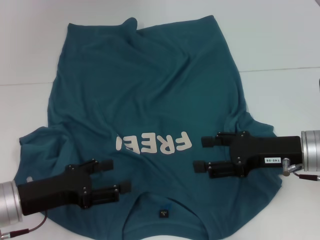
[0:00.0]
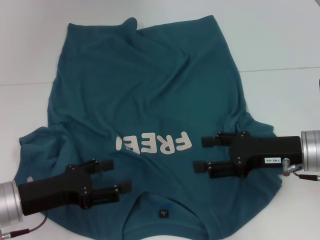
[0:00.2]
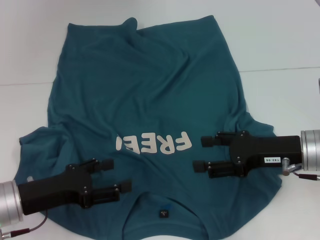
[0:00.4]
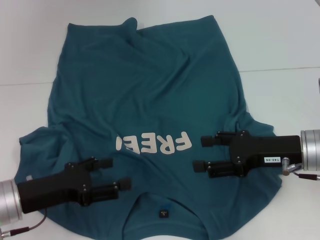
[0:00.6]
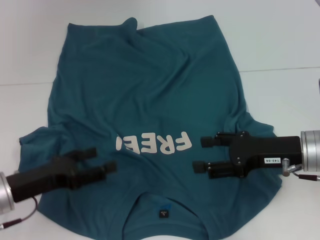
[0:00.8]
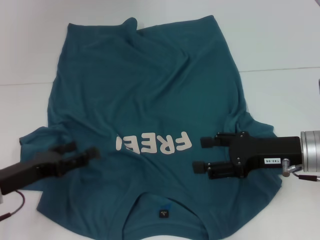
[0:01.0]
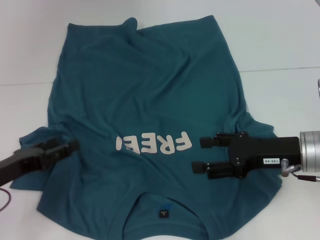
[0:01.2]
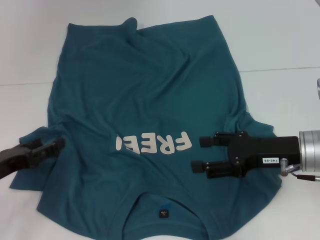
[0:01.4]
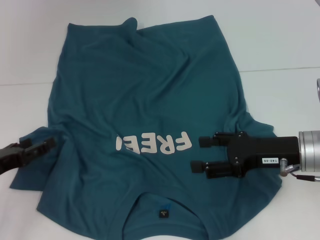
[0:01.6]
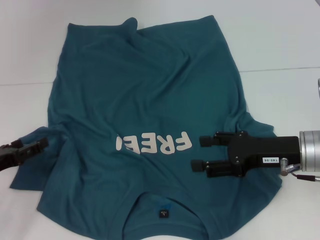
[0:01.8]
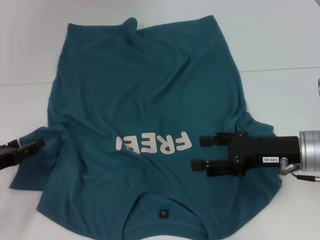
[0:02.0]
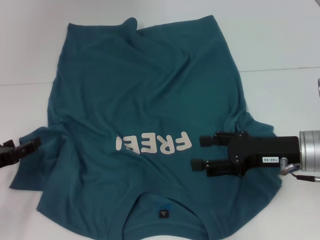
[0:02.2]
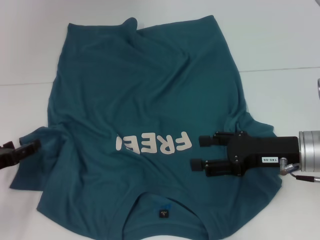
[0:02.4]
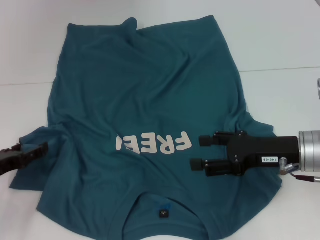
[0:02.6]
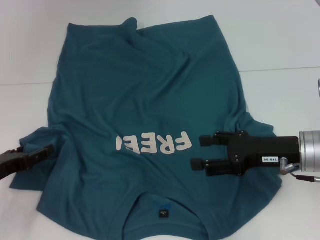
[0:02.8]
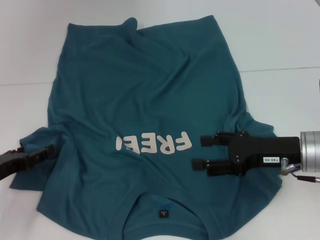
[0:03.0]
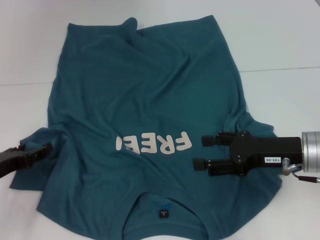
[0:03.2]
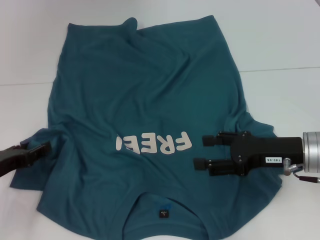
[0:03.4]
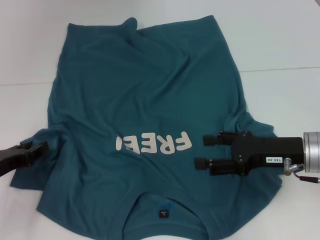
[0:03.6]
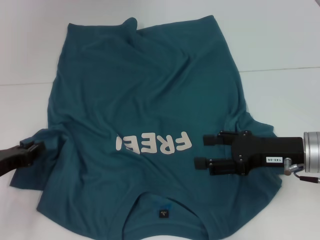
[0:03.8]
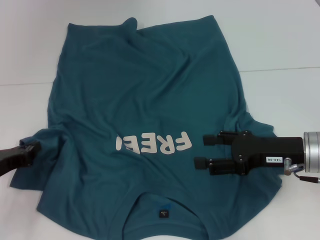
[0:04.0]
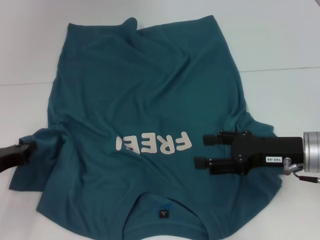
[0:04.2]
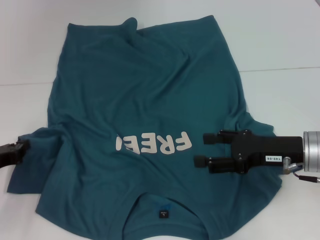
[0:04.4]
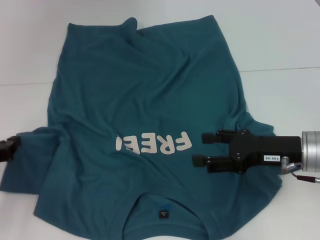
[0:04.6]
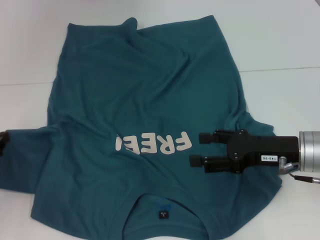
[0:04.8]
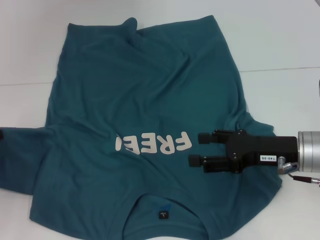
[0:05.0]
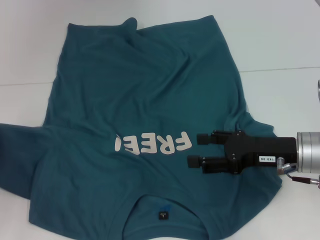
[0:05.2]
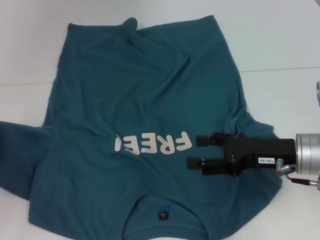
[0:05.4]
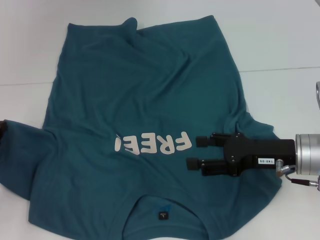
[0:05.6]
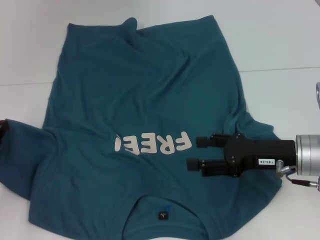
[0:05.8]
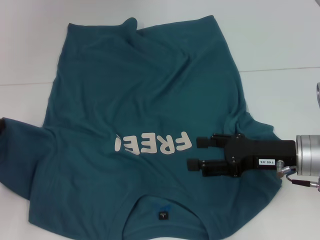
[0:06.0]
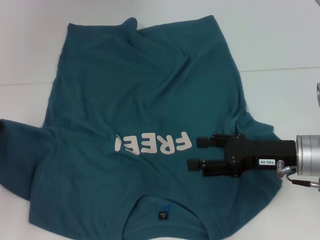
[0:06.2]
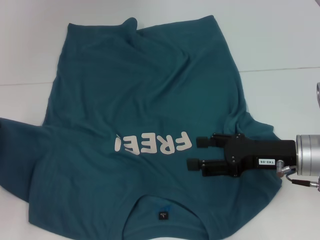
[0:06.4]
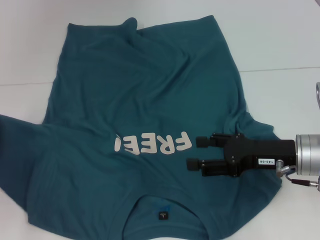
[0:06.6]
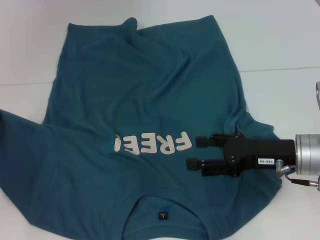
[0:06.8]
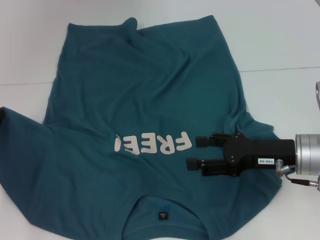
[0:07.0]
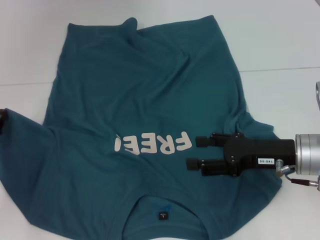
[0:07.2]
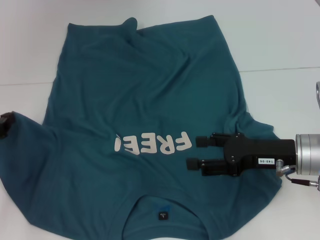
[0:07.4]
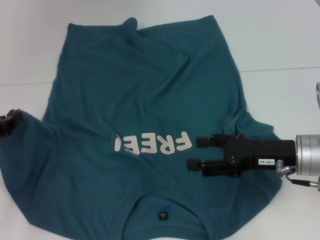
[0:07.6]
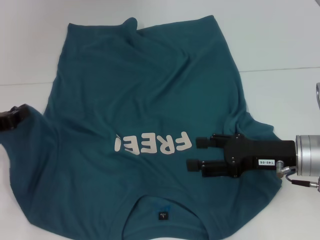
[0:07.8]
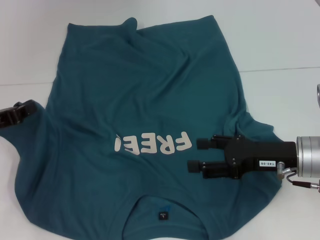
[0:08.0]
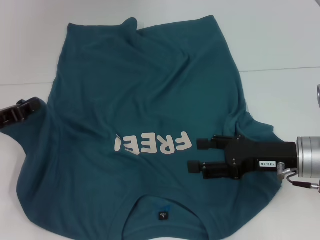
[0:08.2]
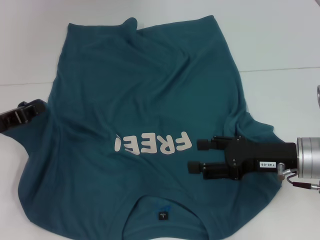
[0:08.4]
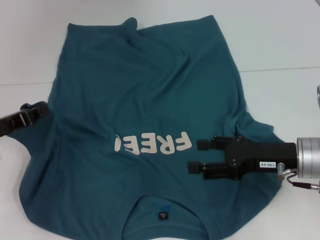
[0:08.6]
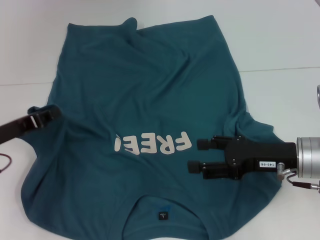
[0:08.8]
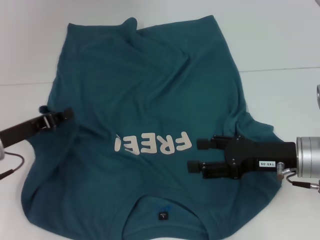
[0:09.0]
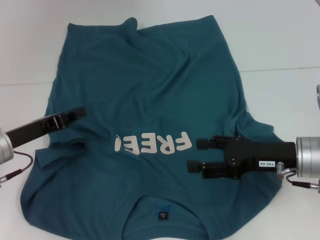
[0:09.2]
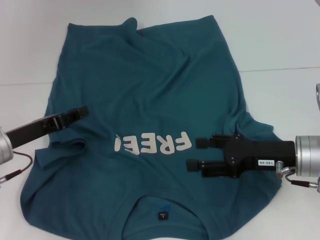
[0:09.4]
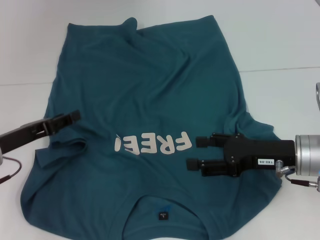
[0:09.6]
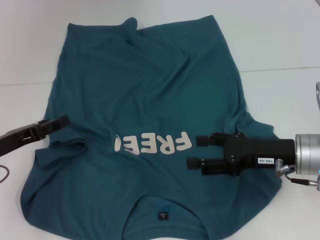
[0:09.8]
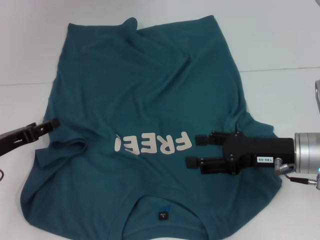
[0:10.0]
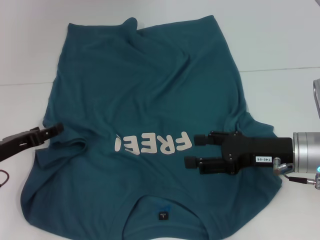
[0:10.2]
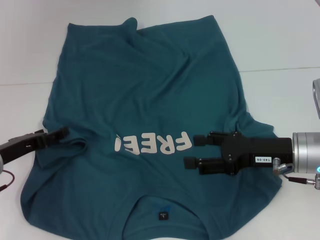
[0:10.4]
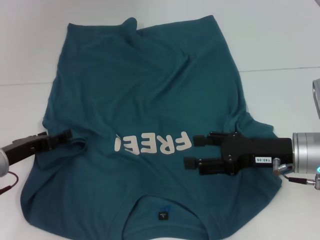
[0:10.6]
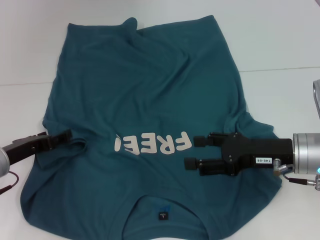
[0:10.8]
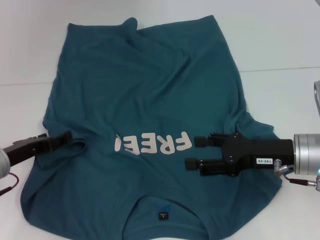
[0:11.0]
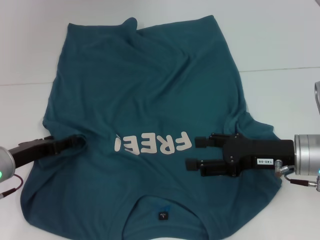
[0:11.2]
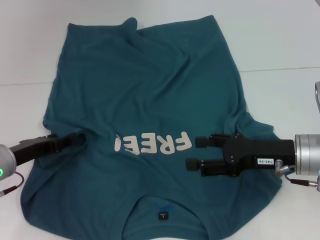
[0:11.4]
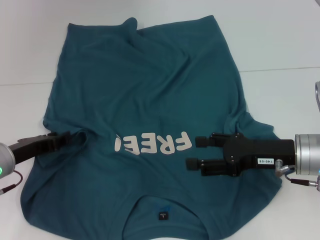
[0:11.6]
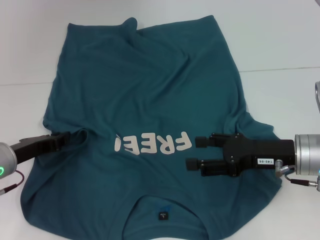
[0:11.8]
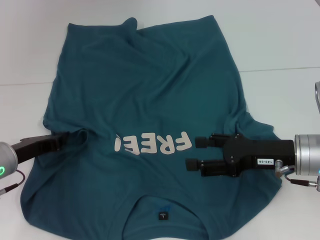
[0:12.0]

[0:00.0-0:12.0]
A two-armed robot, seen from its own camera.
0:00.0 to 0:01.6: The left gripper shifts approximately 10 cm to the left.
0:01.6 to 0:03.0: The grippers stay close to where they were, moving slightly.
0:03.0 to 0:04.4: The left gripper closes its fingers.
0:04.4 to 0:07.6: There are only small adjustments of the grippers.
0:07.6 to 0:09.0: The left gripper goes approximately 5 cm to the right.
0:09.0 to 0:10.4: The left gripper opens its fingers.
0:10.4 to 0:12.0: The left gripper closes.

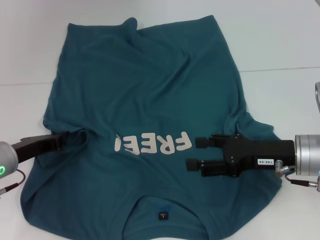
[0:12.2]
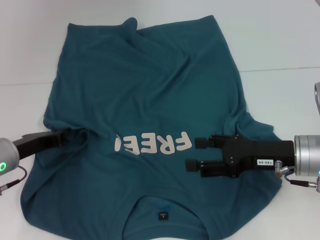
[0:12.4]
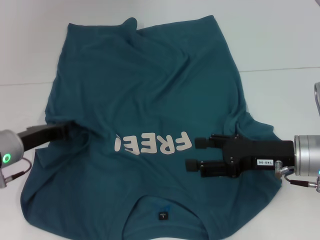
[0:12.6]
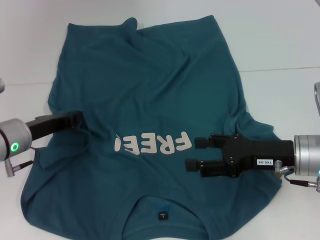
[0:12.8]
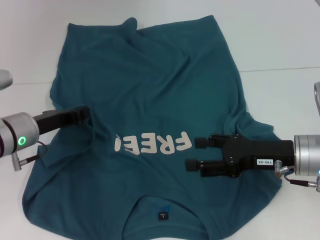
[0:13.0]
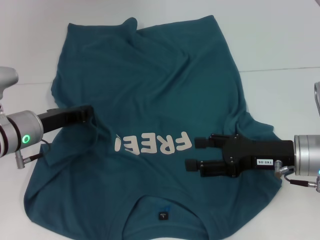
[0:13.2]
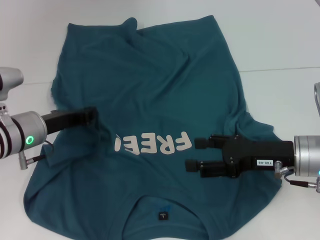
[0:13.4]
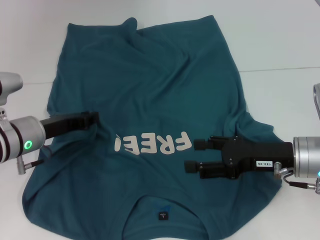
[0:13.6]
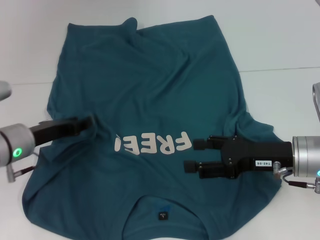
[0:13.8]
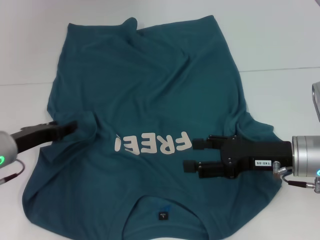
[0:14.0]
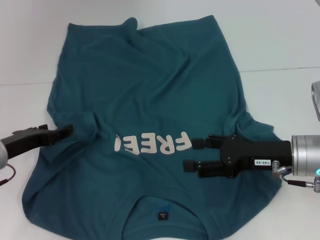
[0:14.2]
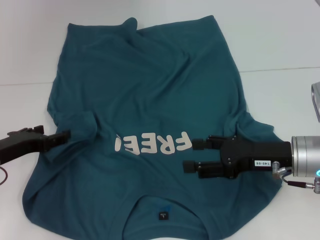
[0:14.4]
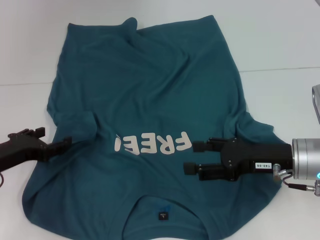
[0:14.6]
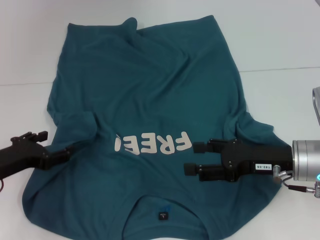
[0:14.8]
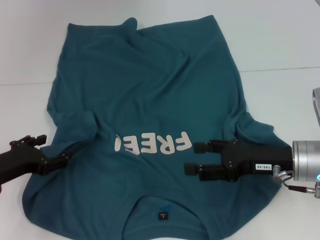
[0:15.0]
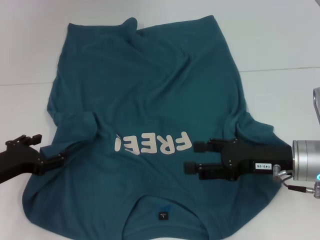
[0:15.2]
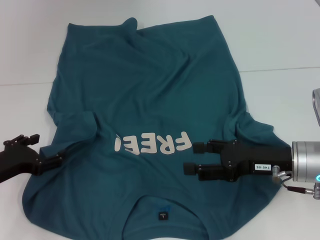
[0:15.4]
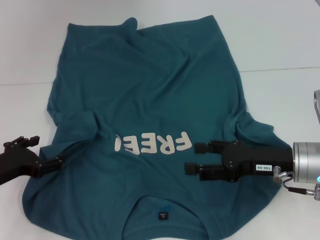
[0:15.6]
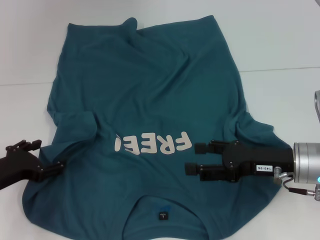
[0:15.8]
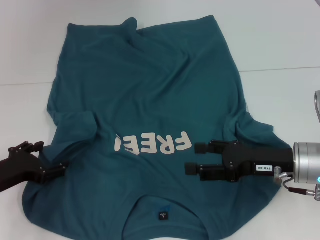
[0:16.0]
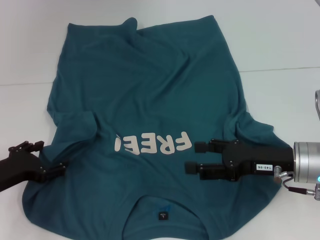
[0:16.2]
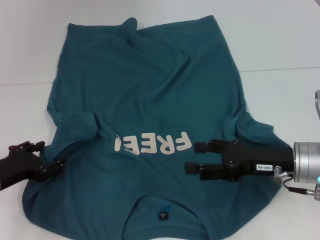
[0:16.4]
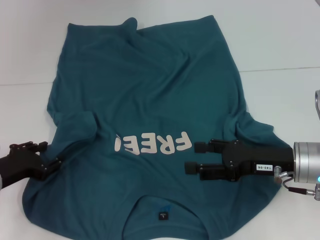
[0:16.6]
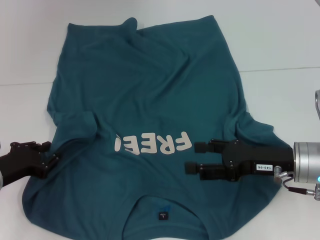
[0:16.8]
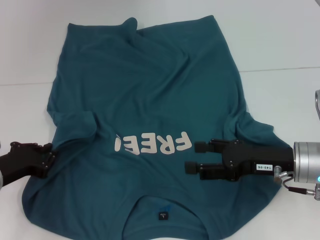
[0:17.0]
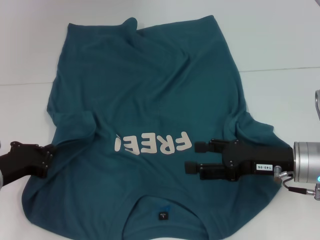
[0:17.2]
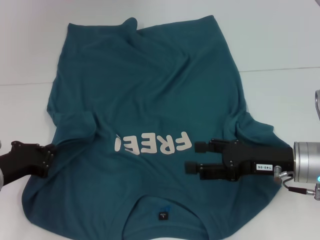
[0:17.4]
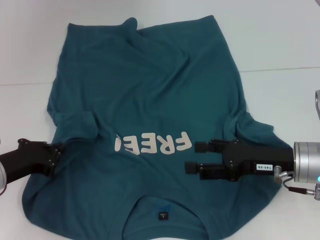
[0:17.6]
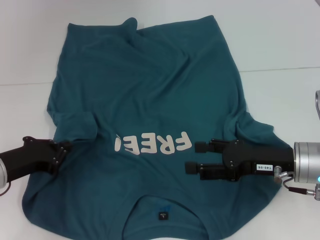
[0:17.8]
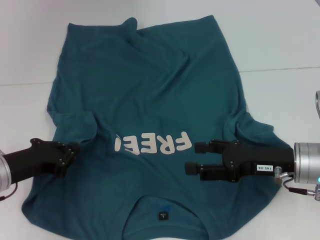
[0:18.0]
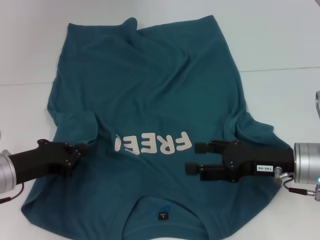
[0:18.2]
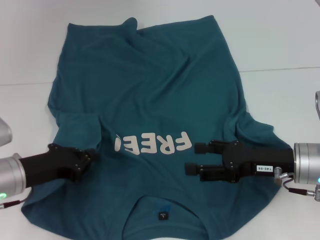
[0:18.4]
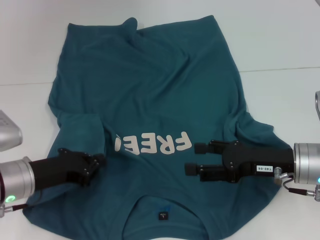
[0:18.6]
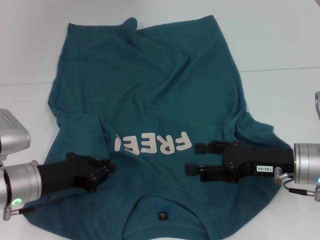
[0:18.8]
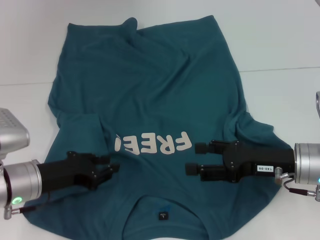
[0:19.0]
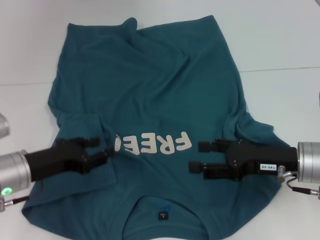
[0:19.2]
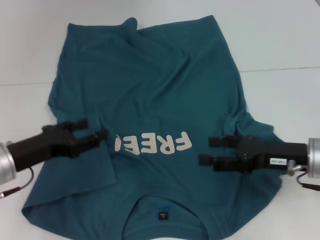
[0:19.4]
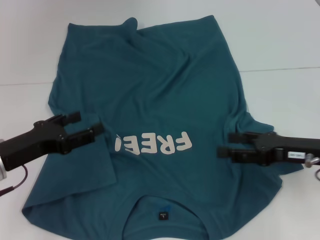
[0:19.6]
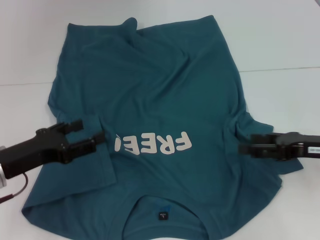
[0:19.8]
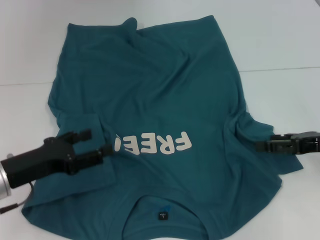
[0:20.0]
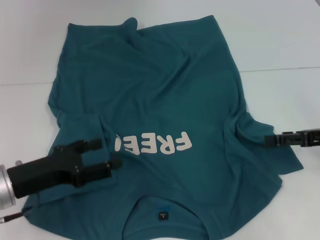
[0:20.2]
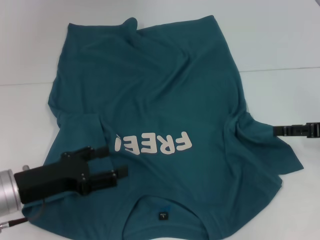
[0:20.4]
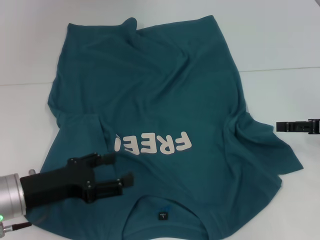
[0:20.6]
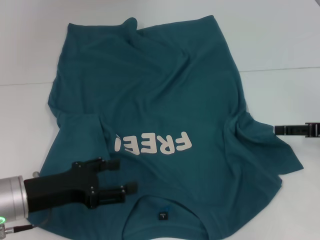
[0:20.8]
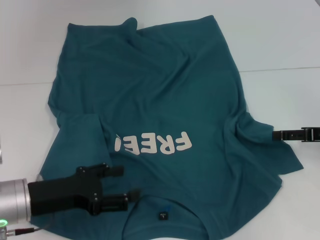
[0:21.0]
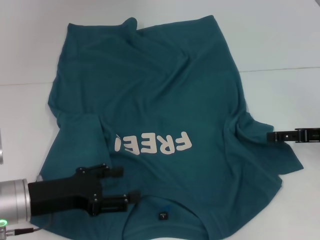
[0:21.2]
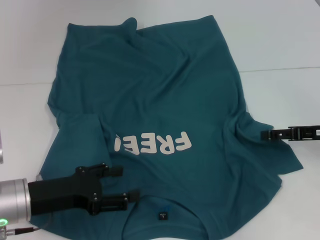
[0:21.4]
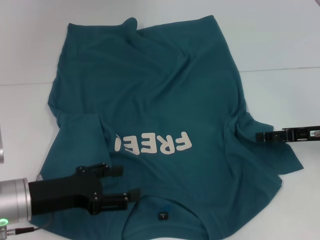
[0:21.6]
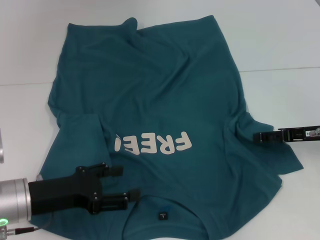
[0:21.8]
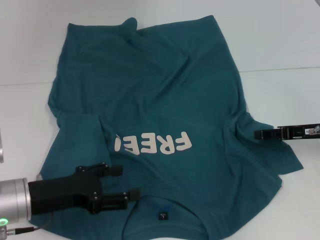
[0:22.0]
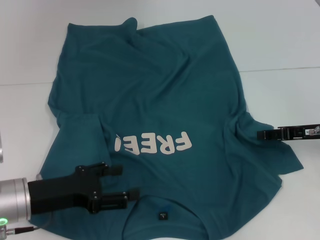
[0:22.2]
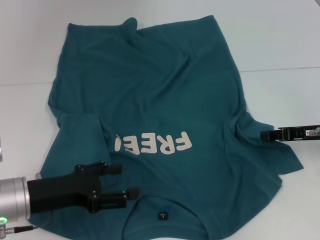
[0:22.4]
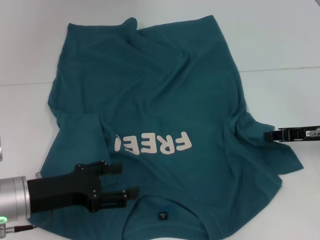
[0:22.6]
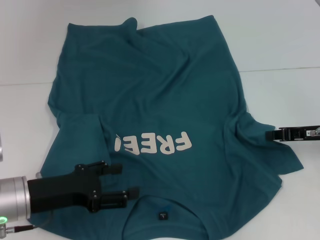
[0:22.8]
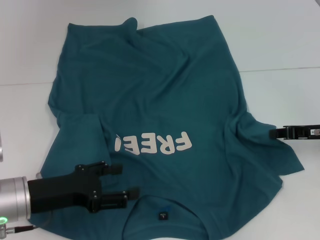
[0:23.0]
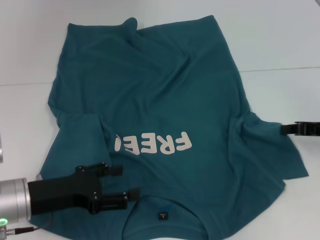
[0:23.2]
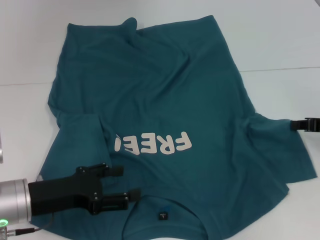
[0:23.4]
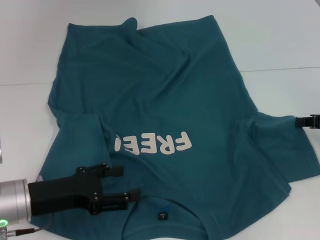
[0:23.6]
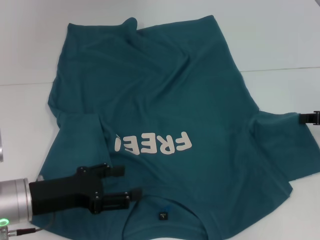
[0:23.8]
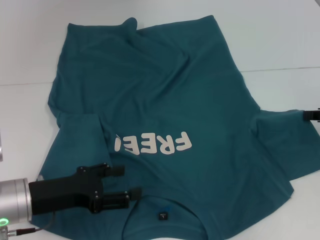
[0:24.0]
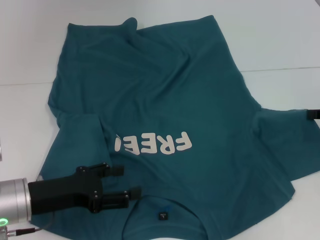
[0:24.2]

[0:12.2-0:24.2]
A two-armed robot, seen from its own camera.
Step, 0:12.2 to 0:19.6: Fold the bottom left sleeve with your left hand.
0:13.8 to 0:15.2: The left gripper goes some 10 cm backward and to the left, and opens up.
0:15.2 to 0:16.6: The grippers move only a little.
0:16.6 to 0:18.2: The left gripper closes up.
0:18.2 to 0:19.8: The right gripper shifts approximately 5 cm to the right; the left gripper opens its fingers.
0:21.2 to 0:22.6: The right gripper closes its fingers.
0:22.6 to 0:24.2: The right gripper shifts roughly 5 cm to the right.
